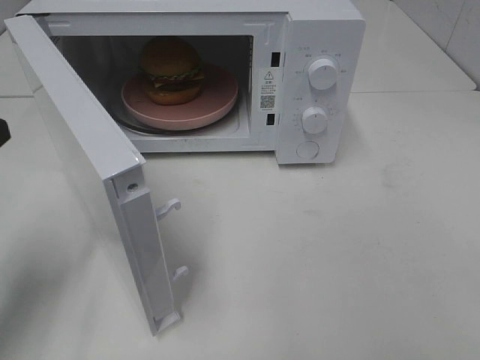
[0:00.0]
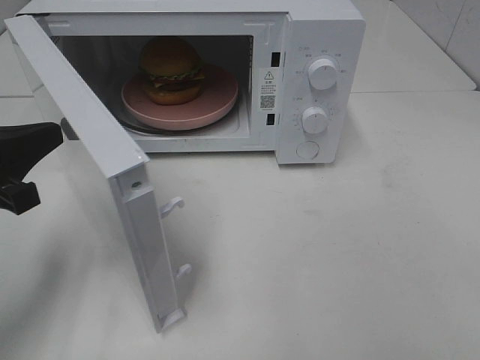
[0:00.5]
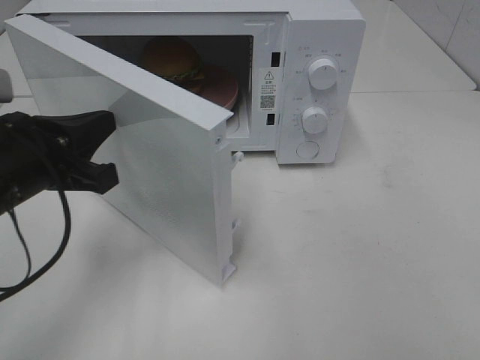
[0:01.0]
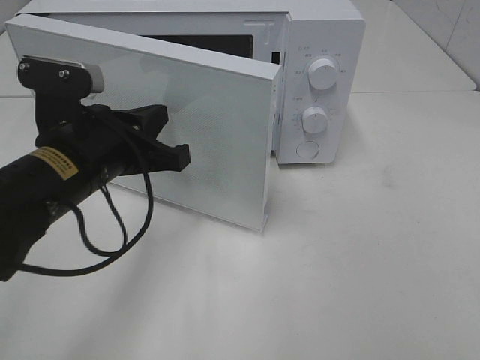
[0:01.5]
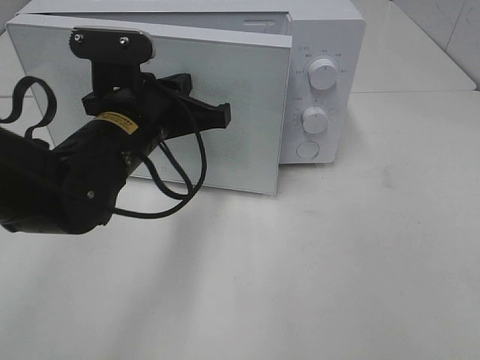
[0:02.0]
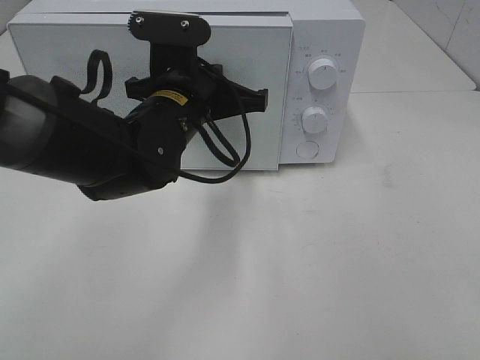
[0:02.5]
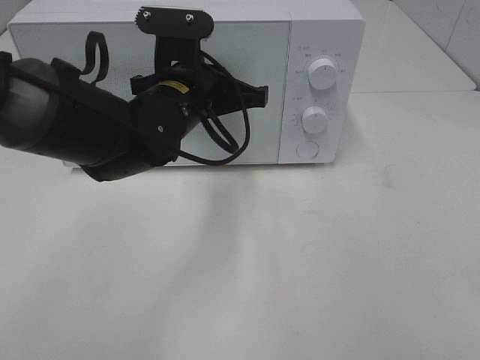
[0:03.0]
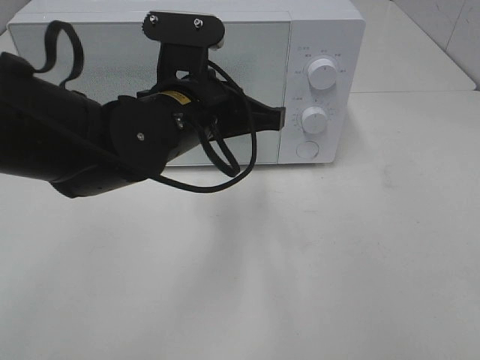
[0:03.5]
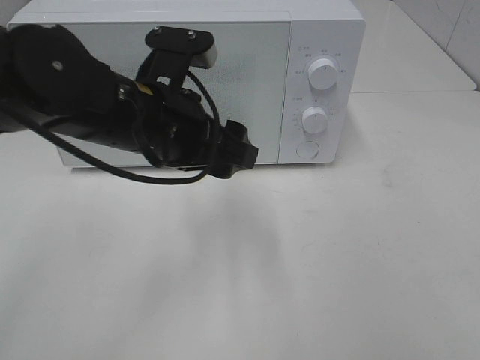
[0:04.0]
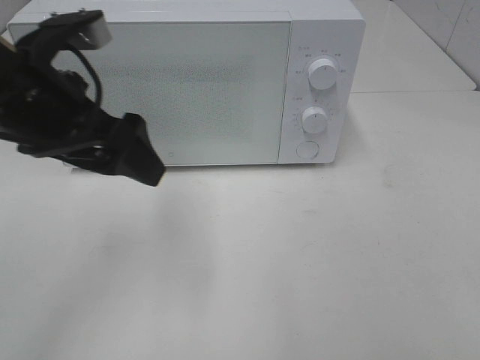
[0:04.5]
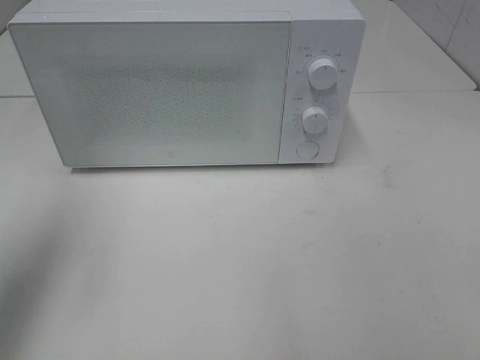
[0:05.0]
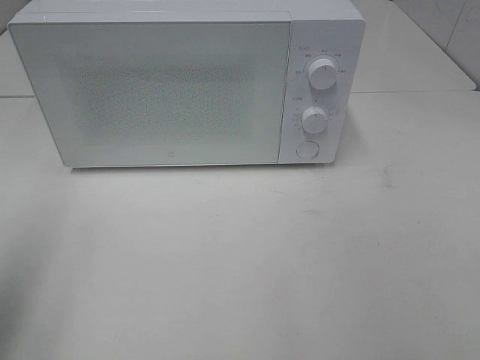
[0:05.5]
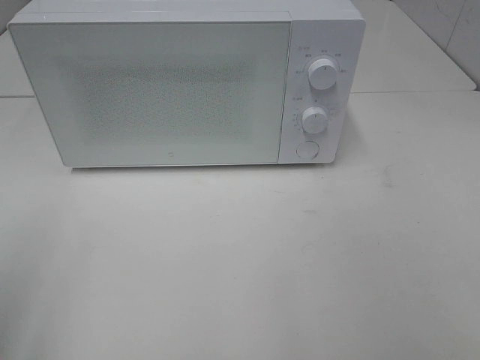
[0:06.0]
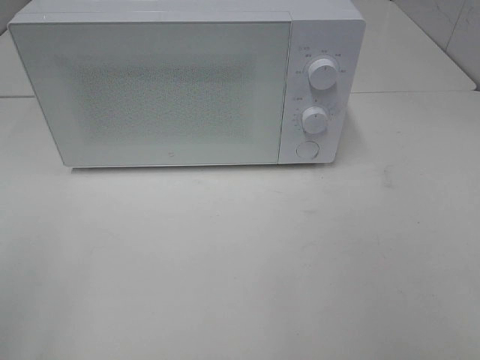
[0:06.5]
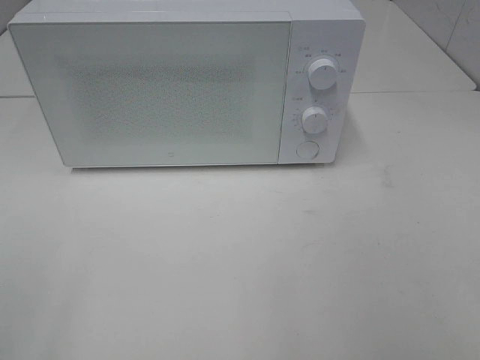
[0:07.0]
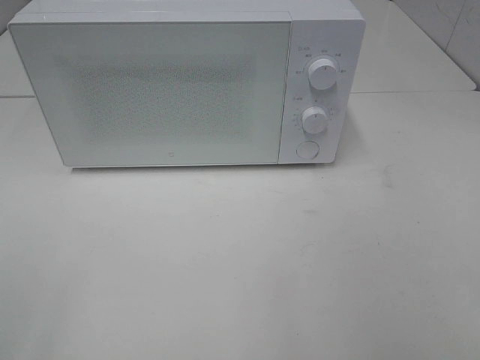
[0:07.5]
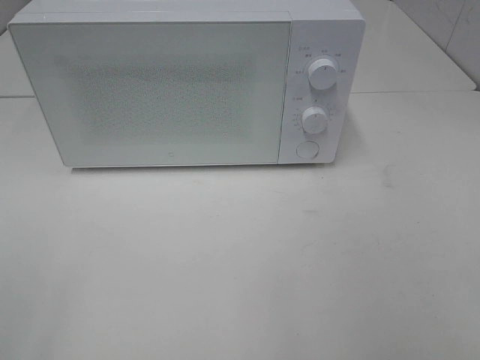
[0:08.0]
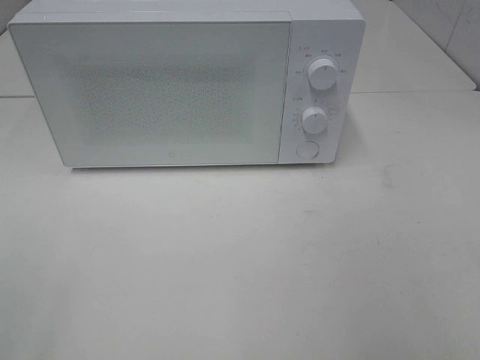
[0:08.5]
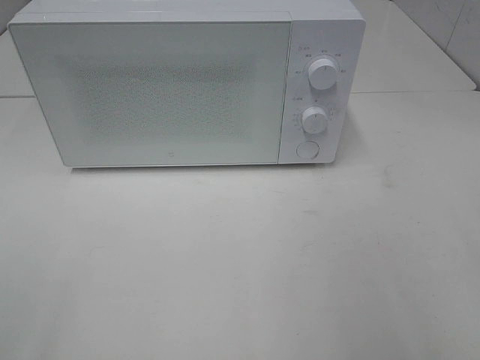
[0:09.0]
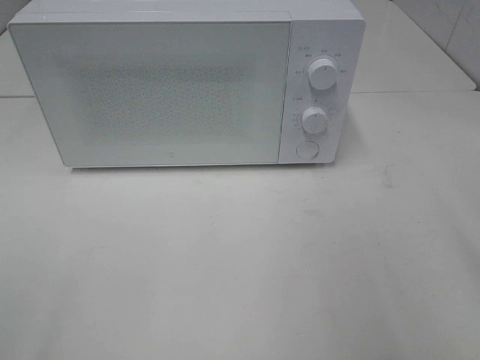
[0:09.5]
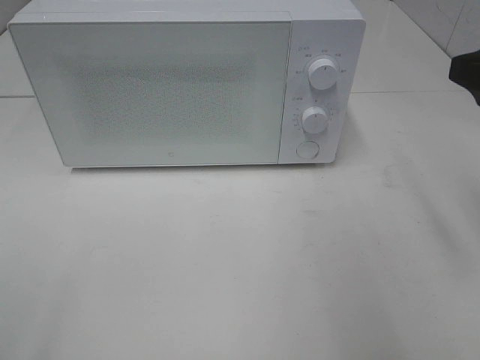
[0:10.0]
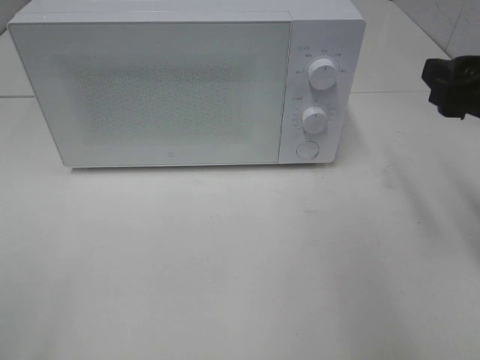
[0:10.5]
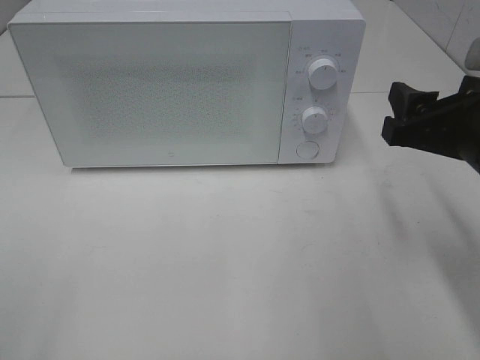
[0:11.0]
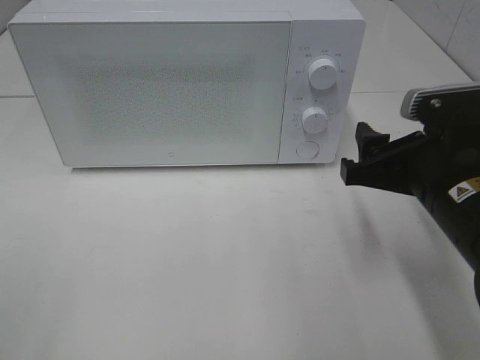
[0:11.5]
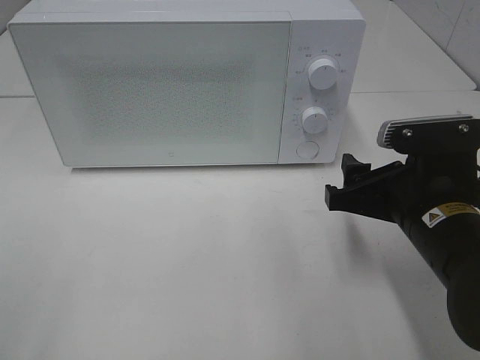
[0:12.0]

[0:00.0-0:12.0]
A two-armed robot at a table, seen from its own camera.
Task of the whole recording: Heat the burger.
Step, 0:00.0 to 0:03.5: Left hand: close the microwave door.
0:00.0 to 0:02.0: The left gripper is displaced to the right and forward by some 20 cm.
0:02.0 to 0:04.0: The left gripper opens.
0:04.0 to 0:06.0: The left gripper travels to the left and backward by roughly 30 cm.
0:08.0 to 0:10.0: The right gripper is displaced forward by approximately 20 cm.
0:10.0 to 0:12.0: The right gripper goes about 15 cm downward and to the left.

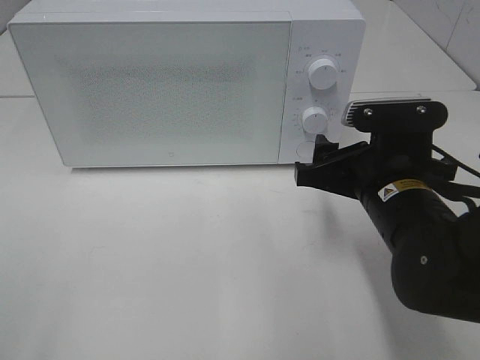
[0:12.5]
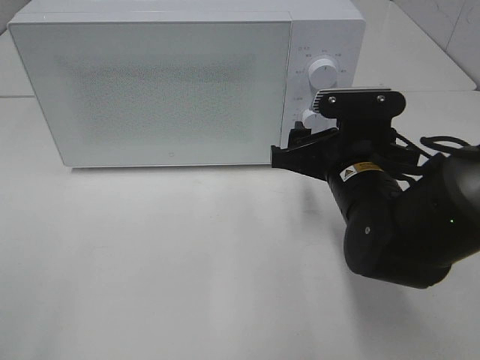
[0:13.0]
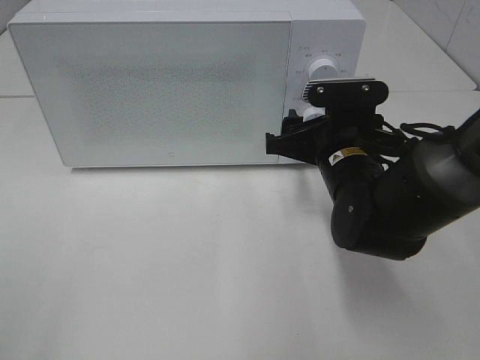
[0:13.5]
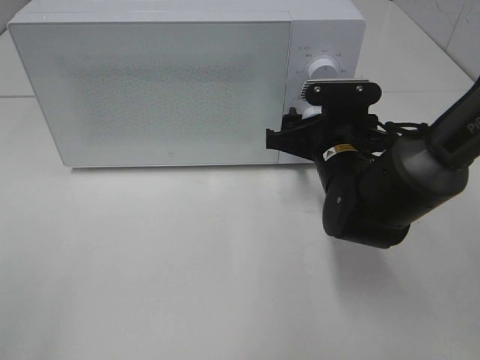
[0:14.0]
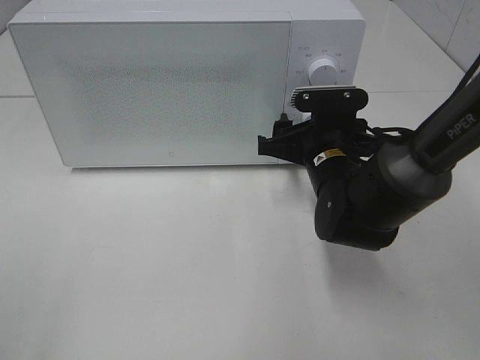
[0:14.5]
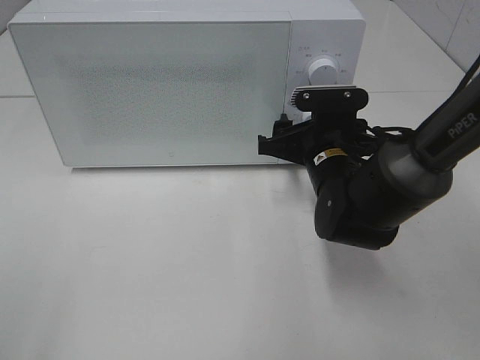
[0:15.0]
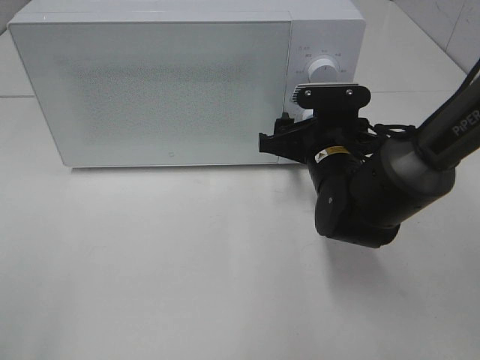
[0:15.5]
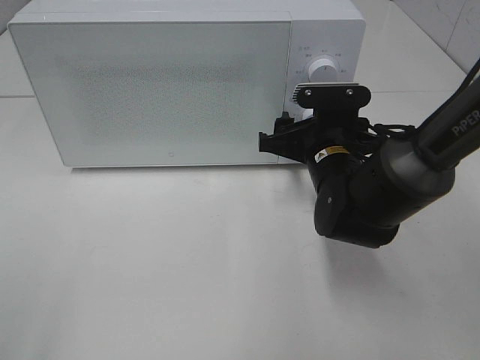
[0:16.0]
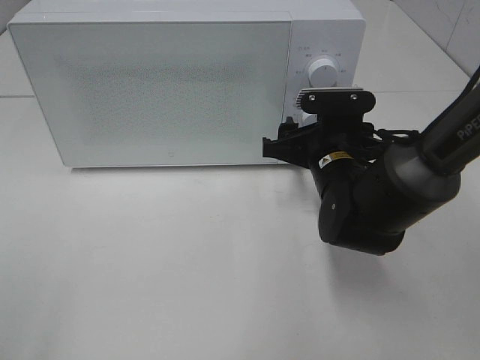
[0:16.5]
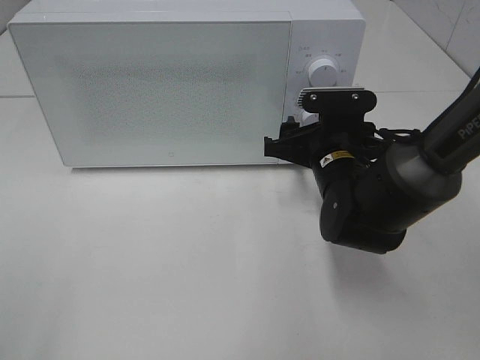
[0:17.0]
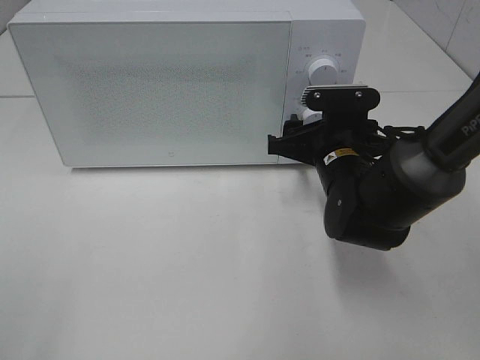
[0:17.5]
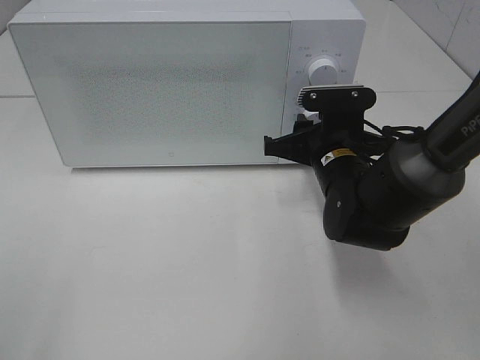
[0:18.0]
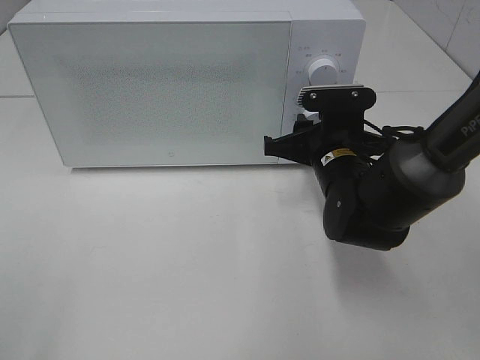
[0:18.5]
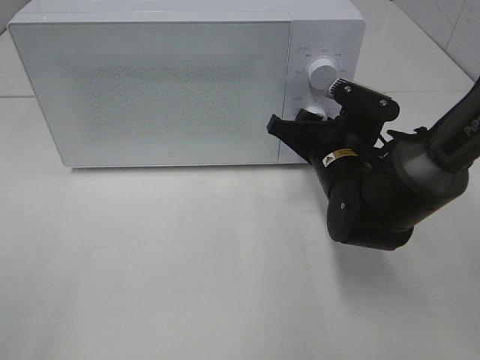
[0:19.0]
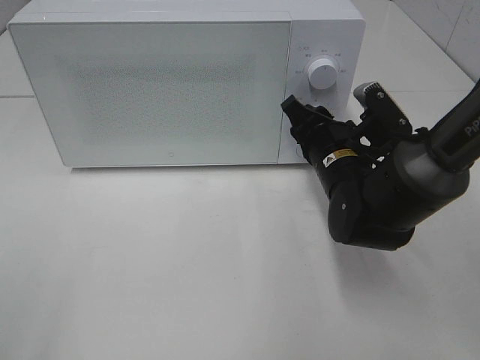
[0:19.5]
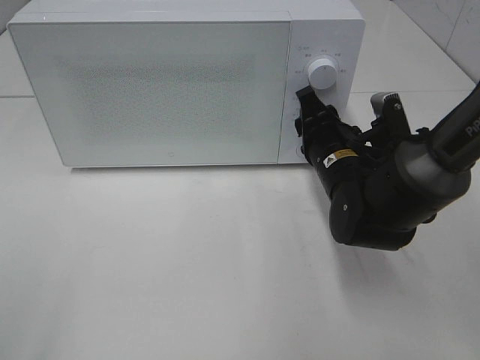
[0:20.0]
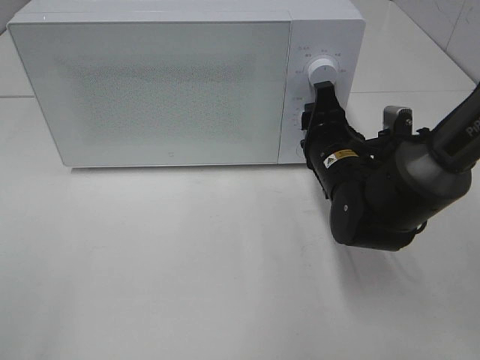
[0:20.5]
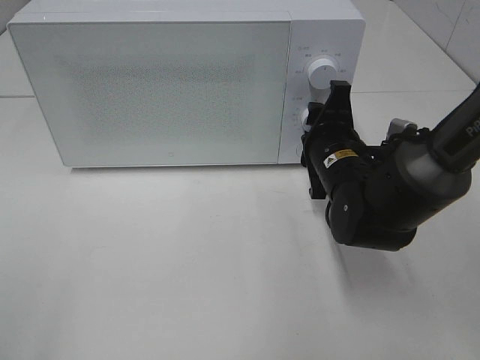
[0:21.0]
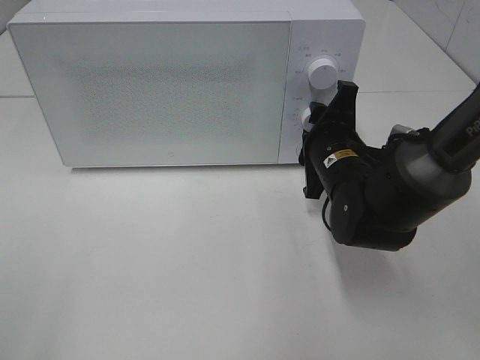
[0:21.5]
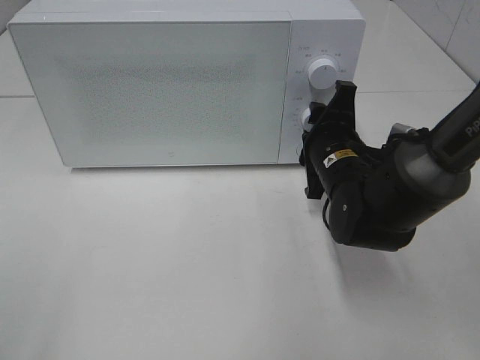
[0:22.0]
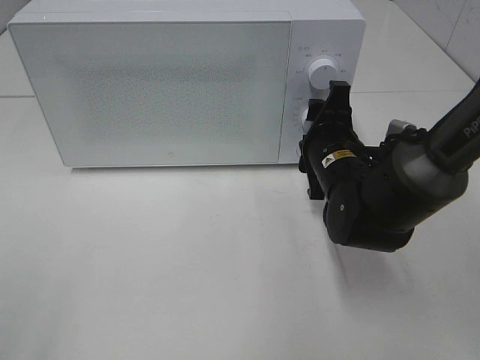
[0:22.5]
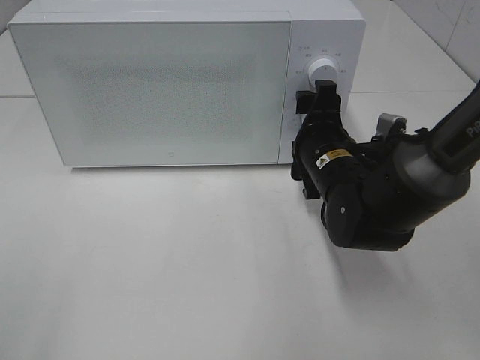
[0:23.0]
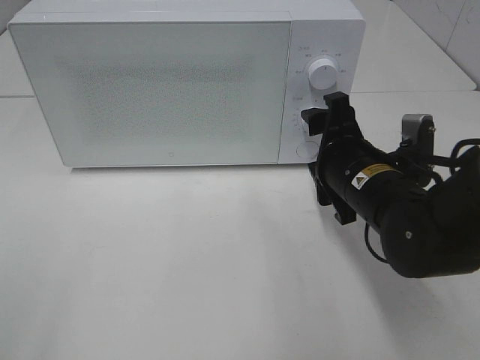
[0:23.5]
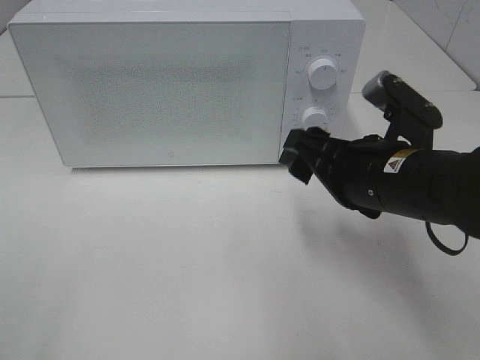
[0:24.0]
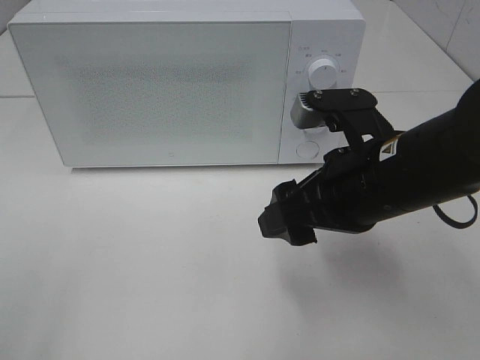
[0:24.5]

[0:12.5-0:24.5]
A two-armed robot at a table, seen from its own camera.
Task of the whole recording: Heat the burger.
Step, 0:12.5 to 0:22.5: Right hand: twist timer button.
0:12.5 to 0:14.5: The right gripper moves forward, some 10 cm.
0:14.5 to 0:16.5: Neither gripper changes place.
0:16.5 to 0:18.5: The right gripper closes up.
0:20.5 to 0:22.5: The grippers make only small movements.
0:22.5 to 0:24.5: The right gripper heads backward and upward, covering about 15 cm.

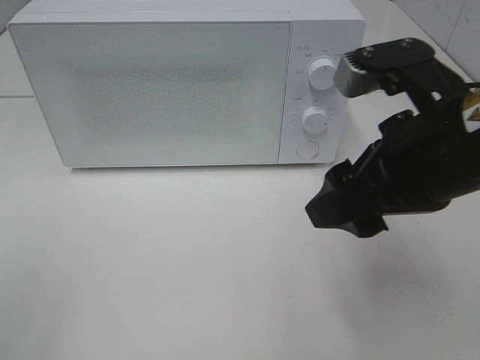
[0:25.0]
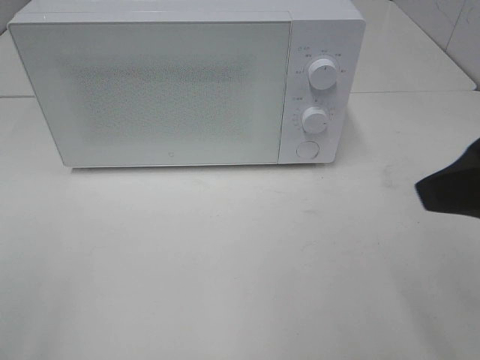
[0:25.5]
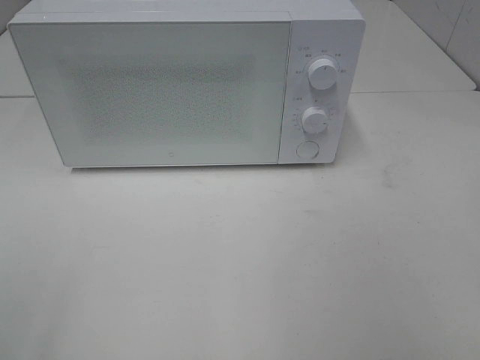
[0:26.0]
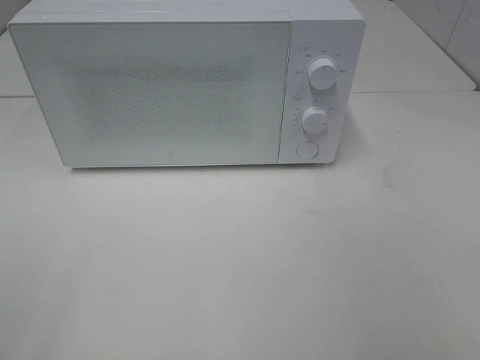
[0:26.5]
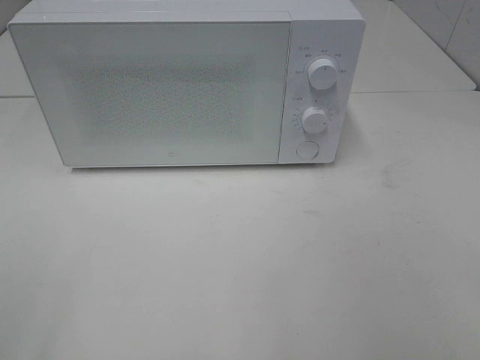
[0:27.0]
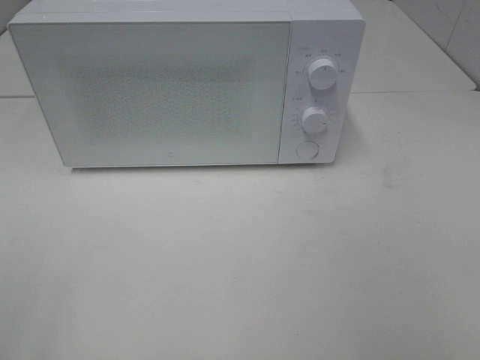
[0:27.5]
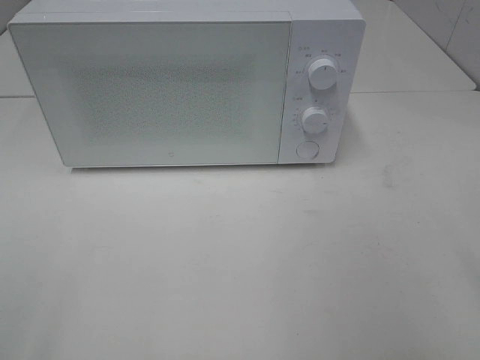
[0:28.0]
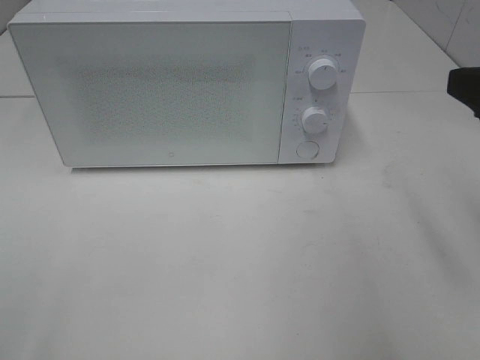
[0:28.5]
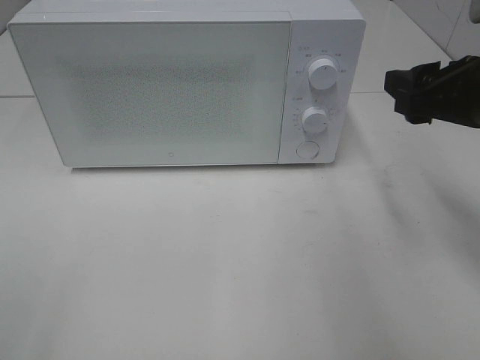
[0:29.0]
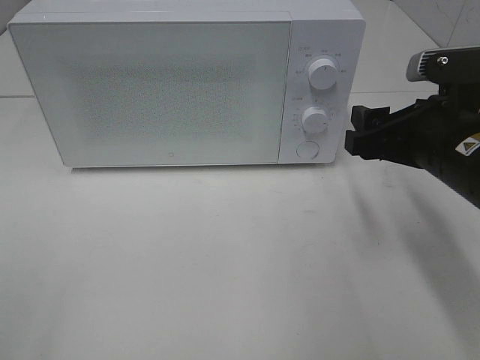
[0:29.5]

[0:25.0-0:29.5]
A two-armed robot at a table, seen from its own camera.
Task of the whole recording: Heat the burger.
0:25.0 to 0:27.0: The right gripper shifts some 25 cm backward and to the right.
0:27.0 to 0:29.5: The right gripper travels forward by approximately 25 cm.
